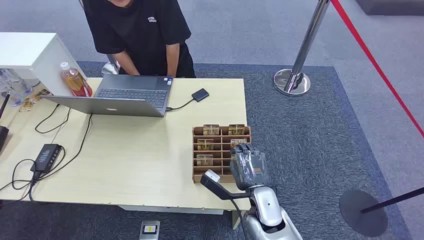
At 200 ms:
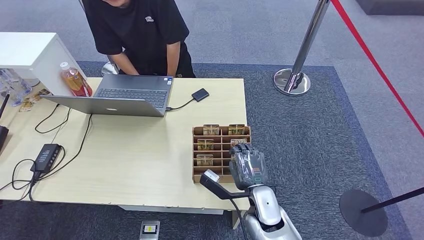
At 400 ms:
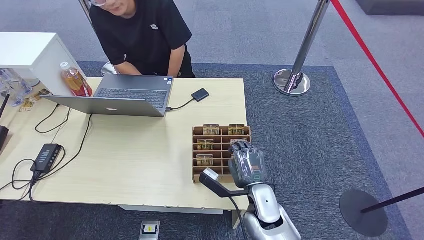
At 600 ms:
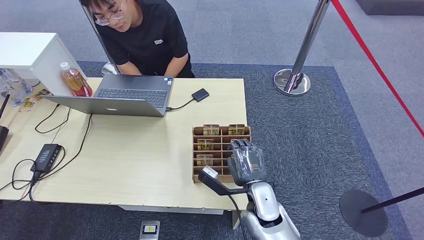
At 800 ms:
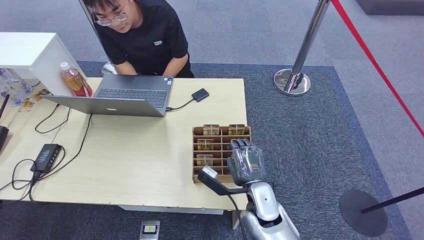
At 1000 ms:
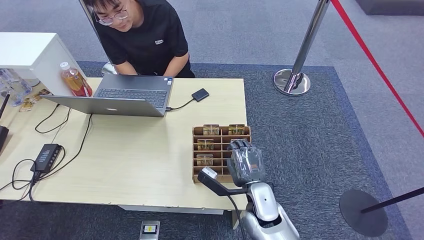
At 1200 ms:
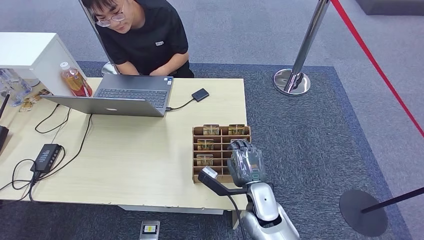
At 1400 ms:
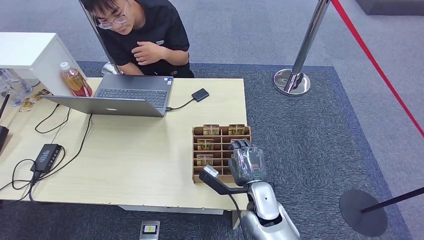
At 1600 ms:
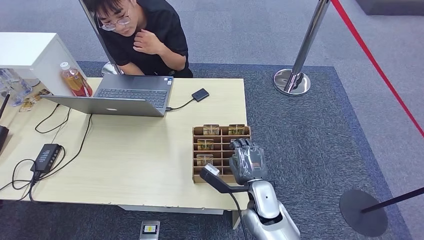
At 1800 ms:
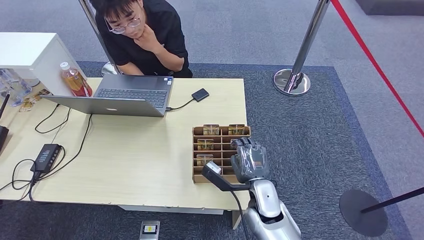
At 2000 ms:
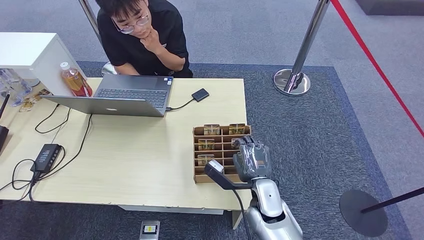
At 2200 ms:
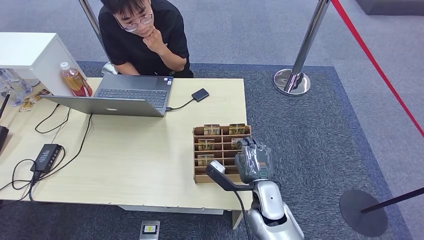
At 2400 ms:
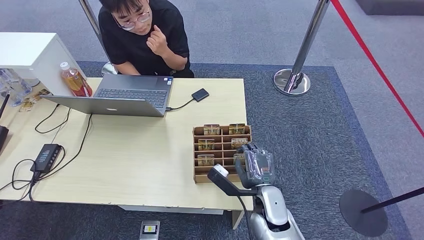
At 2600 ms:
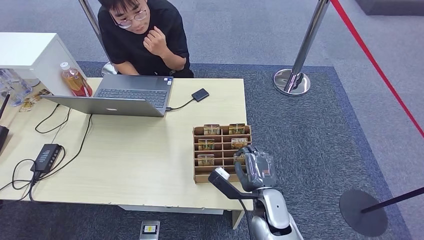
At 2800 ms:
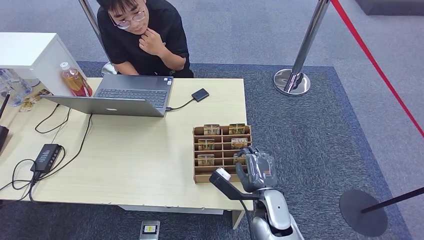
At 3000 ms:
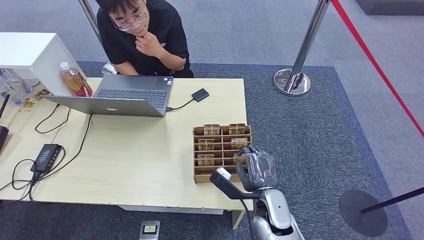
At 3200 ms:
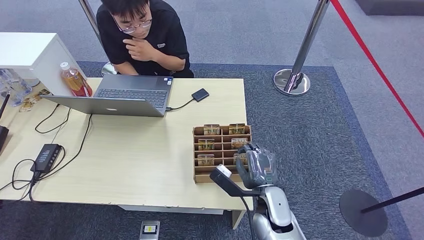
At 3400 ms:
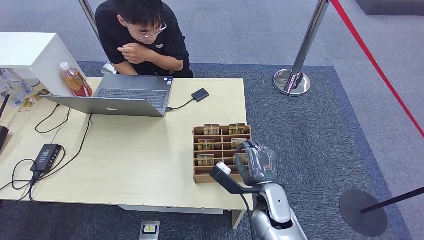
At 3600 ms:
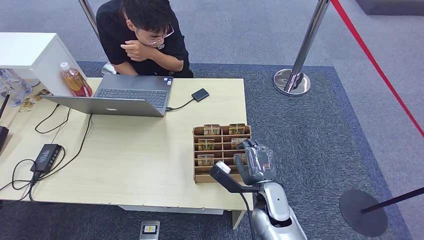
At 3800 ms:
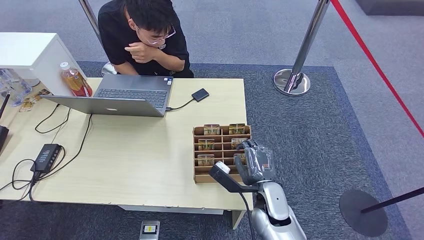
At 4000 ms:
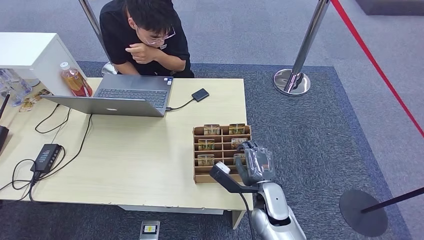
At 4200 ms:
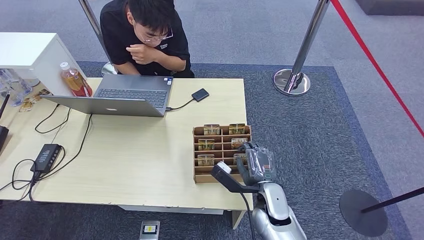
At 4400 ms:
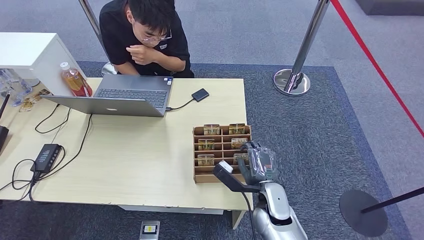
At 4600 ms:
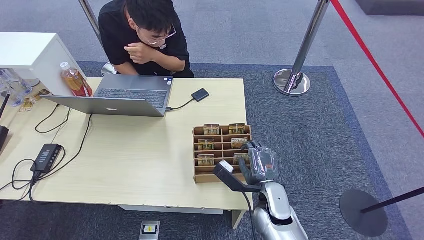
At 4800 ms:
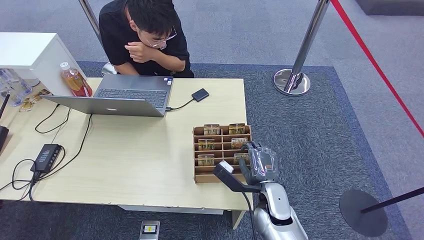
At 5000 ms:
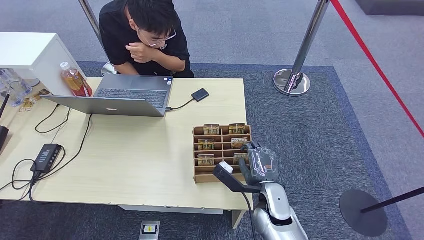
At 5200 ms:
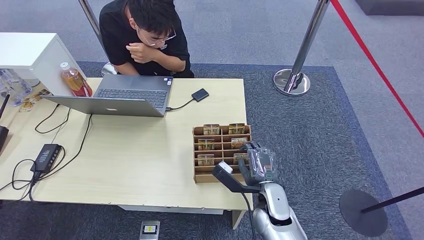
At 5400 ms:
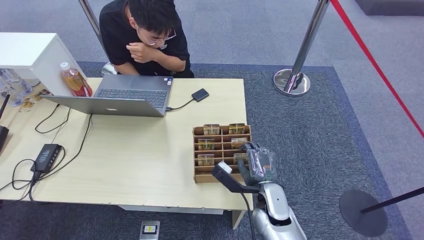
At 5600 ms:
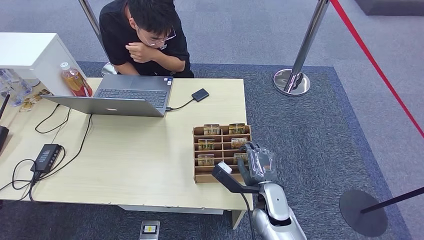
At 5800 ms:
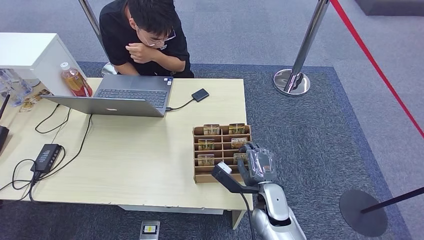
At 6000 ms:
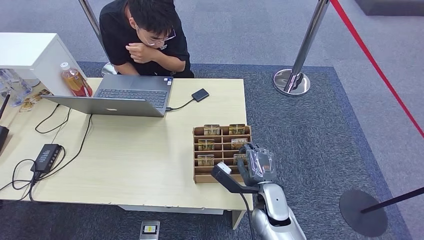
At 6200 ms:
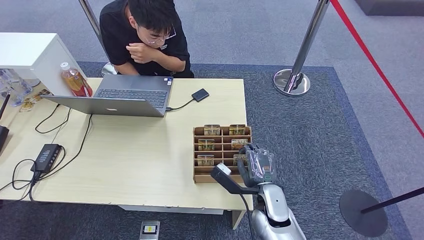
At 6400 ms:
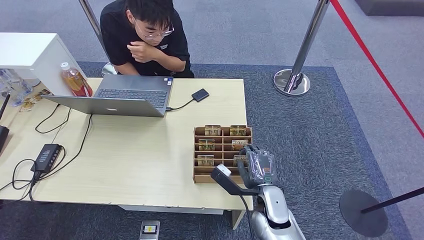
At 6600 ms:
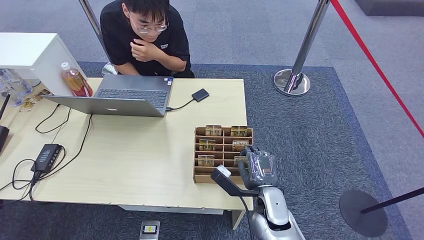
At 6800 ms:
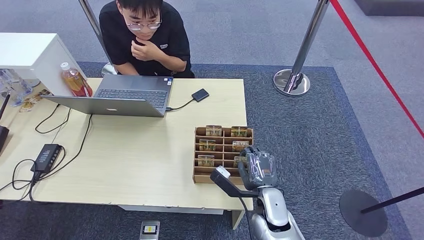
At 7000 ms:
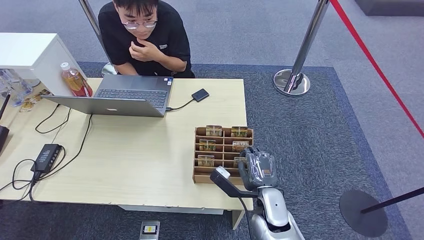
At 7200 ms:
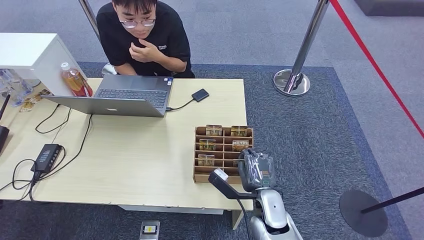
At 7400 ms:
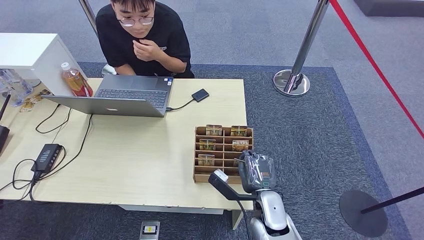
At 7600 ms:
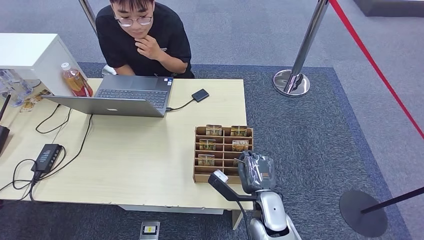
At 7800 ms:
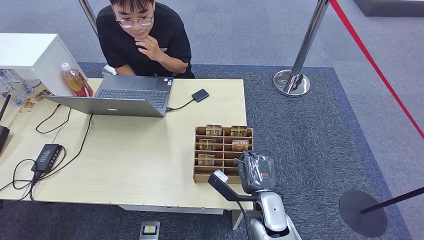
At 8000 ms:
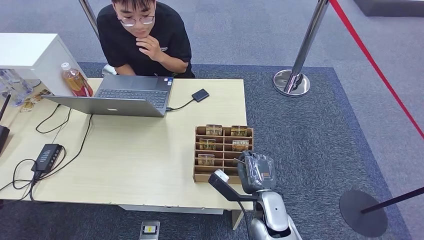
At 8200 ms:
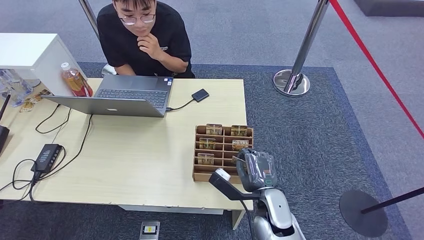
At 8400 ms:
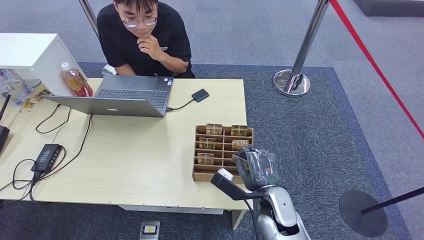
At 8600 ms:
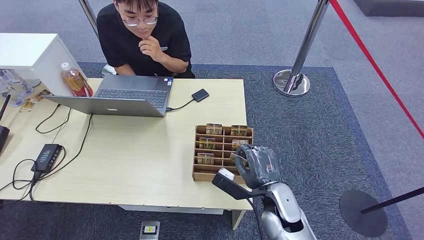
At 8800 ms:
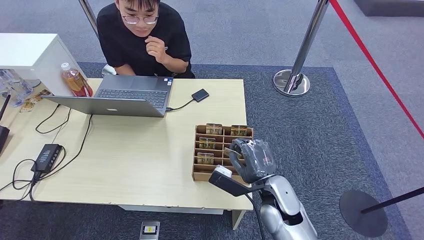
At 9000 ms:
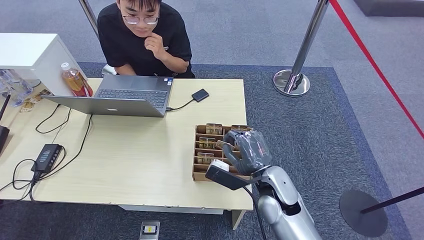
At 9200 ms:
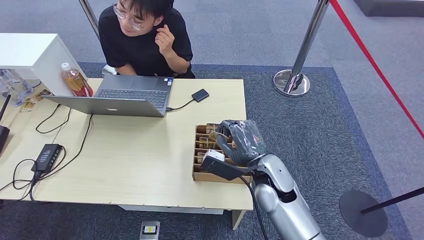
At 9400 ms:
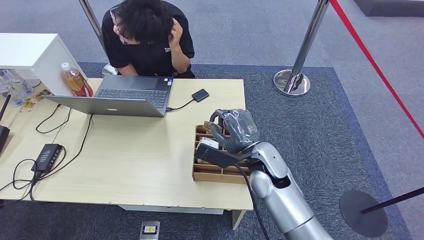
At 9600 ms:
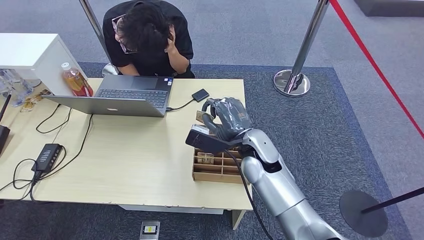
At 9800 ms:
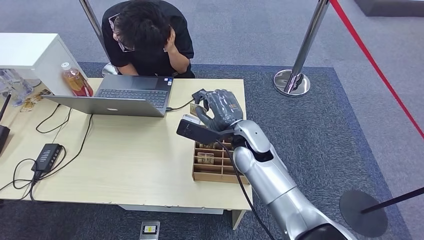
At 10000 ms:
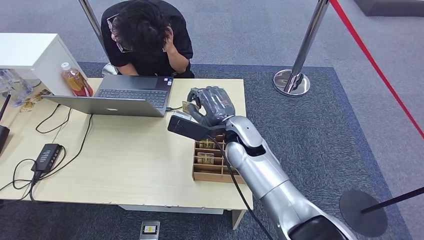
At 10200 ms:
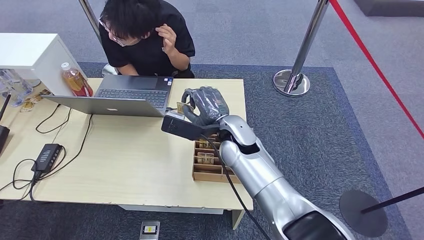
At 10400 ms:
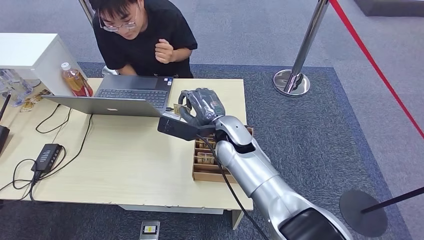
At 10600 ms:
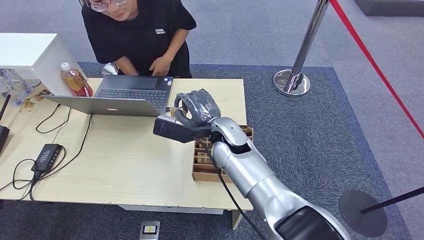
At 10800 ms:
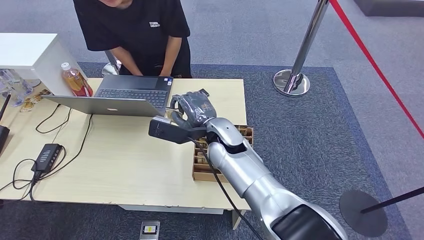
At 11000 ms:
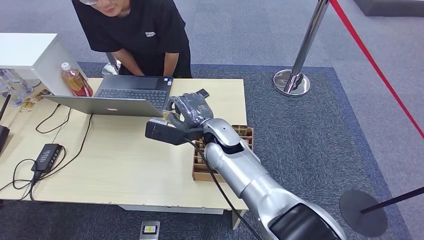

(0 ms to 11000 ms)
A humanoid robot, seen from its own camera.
Step, 0 ms - 7000 ms: Pick up the room card from the card holder.
Step, 7200 ms - 11000 ms: Hand the room card to the target.
1600 ms - 4800 ms: There are only small adjustments of the hands.
4800 ms - 6200 ms: Both hands stay put.
6200 ms - 7800 ms: The hands move only a little.
7800 ms - 9400 ms: The right hand heads upward and forward, covering approximately 15 cm.
9400 ms - 11000 ms: The right hand is displaced to the left and forward by some 10 cm.
